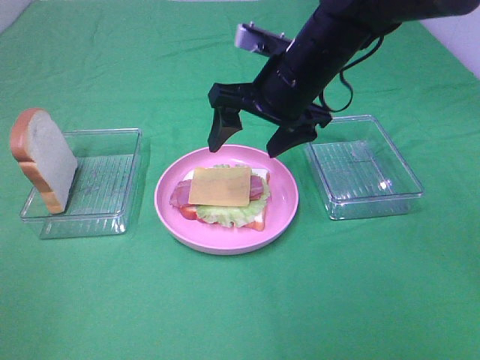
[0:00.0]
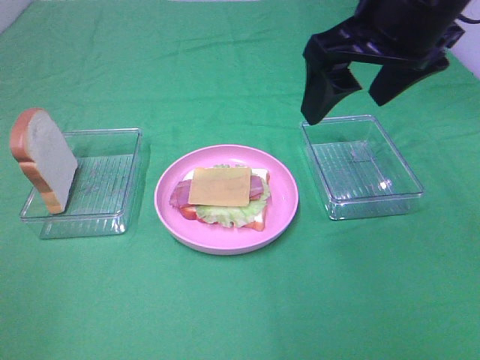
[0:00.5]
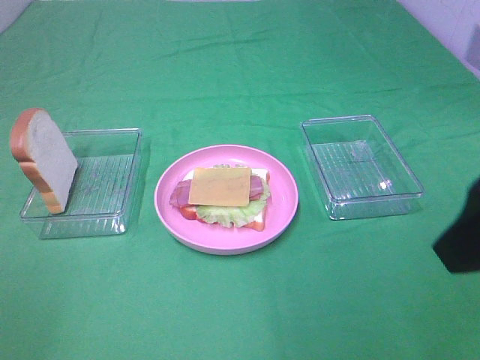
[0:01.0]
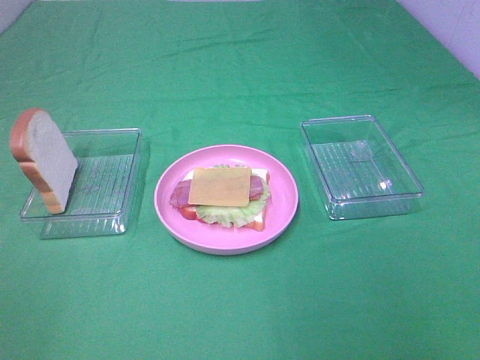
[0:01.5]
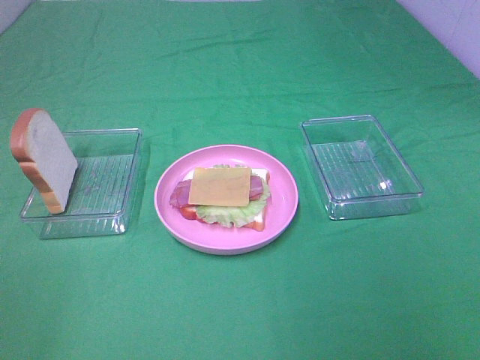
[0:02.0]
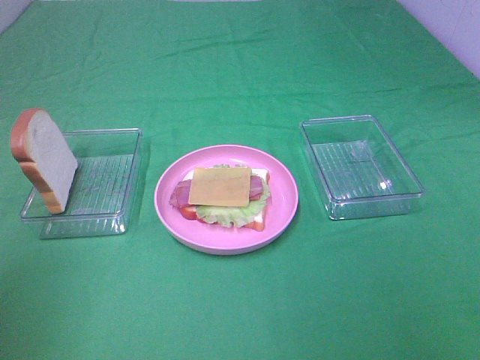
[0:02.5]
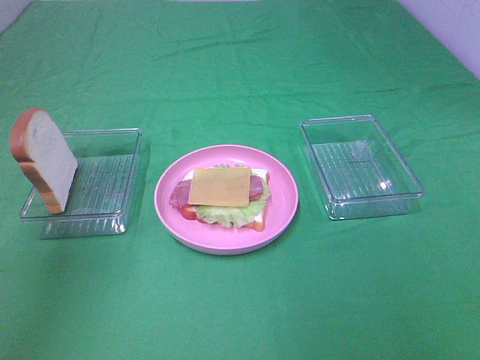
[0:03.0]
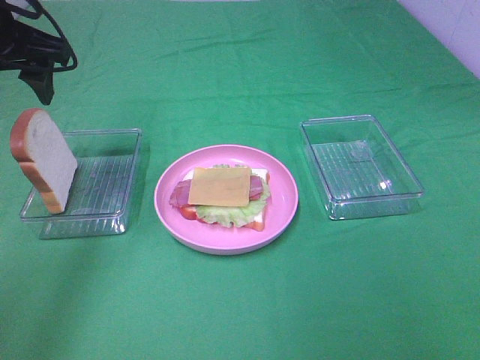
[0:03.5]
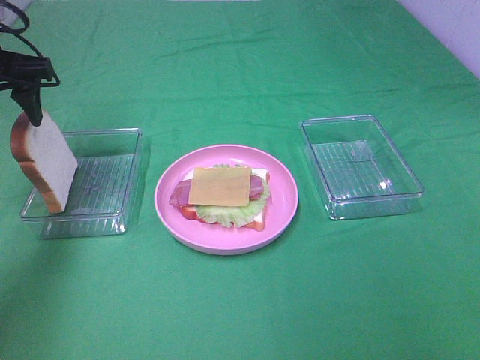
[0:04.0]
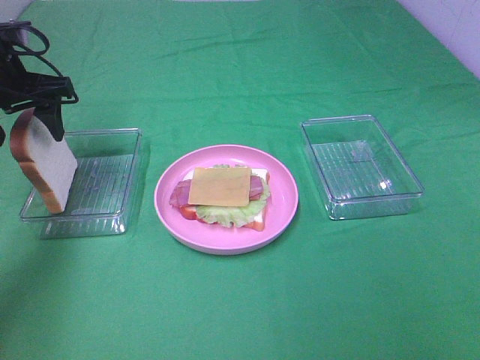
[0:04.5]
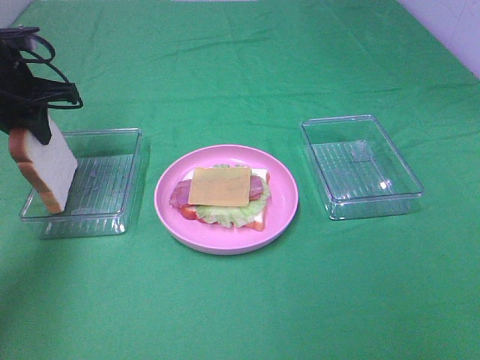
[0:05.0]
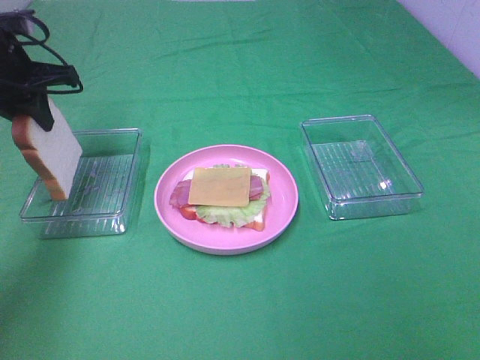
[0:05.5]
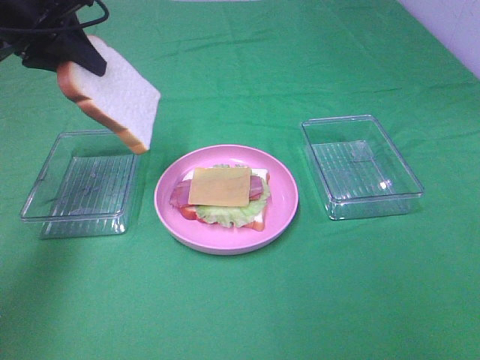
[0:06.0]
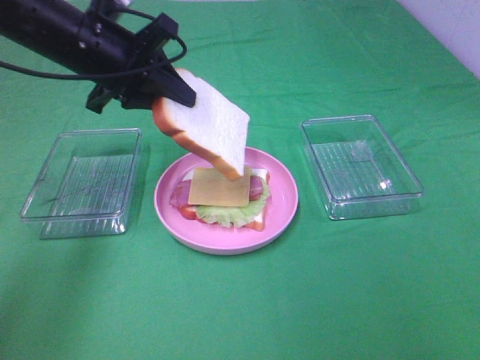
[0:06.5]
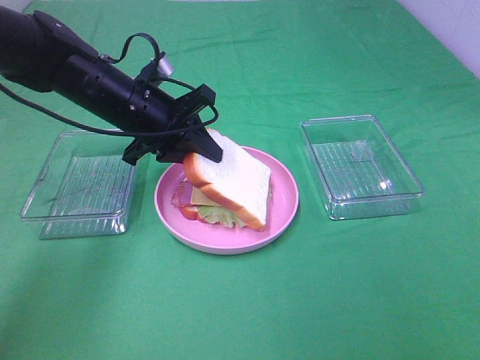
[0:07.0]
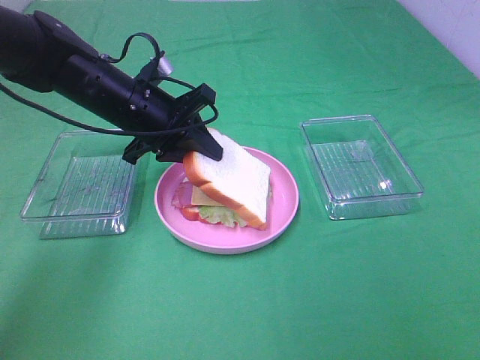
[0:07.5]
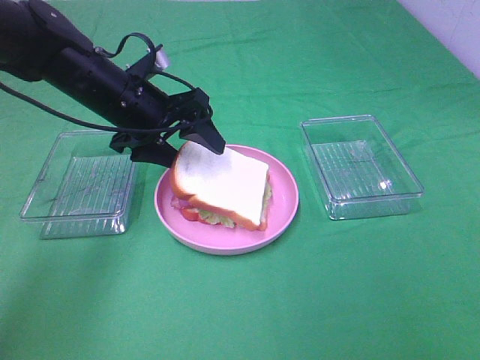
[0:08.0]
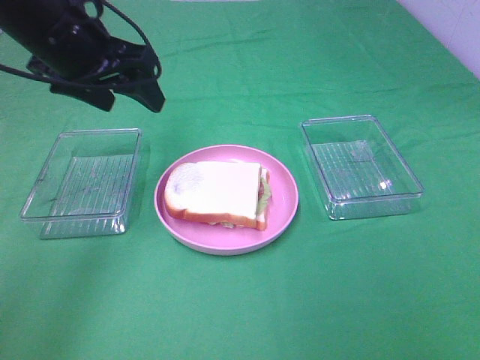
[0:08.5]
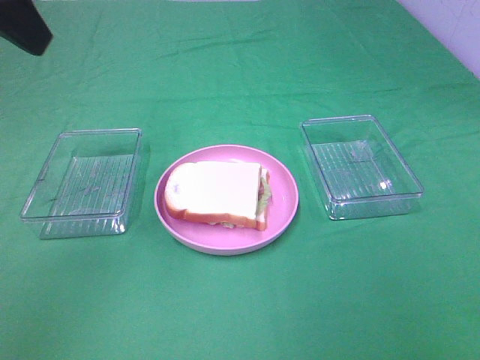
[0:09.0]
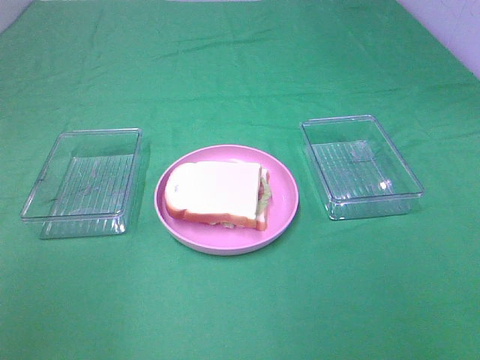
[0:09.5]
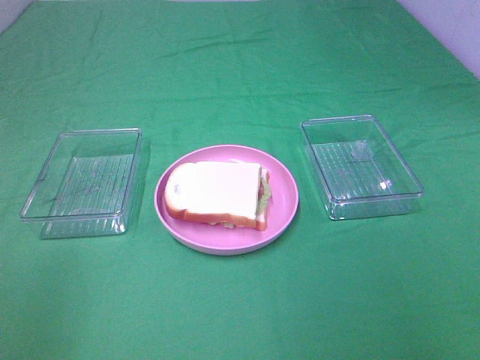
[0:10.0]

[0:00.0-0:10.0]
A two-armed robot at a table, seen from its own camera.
Task of the whole recording: Make sandwiches.
Step, 0:00.0 to 0:05.0: Left hand:grab the bread slice.
Step, 0:05.5 to 0:08.5: Left hand:place the bread slice on the cheese slice.
0:00.0 to 0:02.0: The right gripper shifts some 40 cm backward and to the right.
0:02.0 to 0:04.0: The left gripper heads forward, covering roughly 40 cm.
0:04.0 to 0:06.0: The left gripper goes some 5 cm to the right, and closes.
0:06.0 to 0:08.0: The left gripper is displaced downward and to the right by roughly 15 cm, and opens its fingers.
0:08.0 to 0:10.0: The left gripper goes some 40 cm backward and to the left.

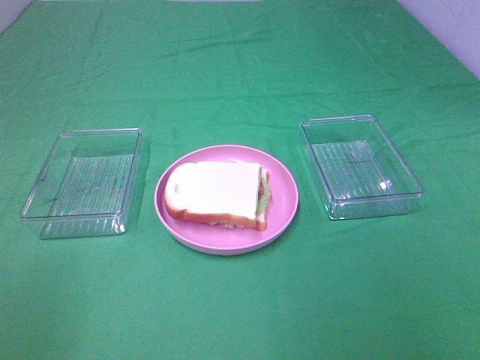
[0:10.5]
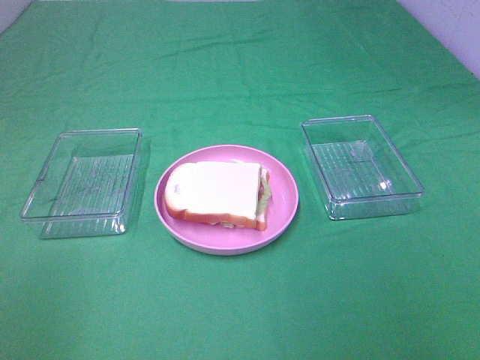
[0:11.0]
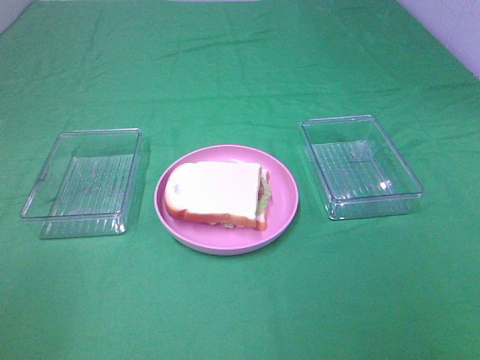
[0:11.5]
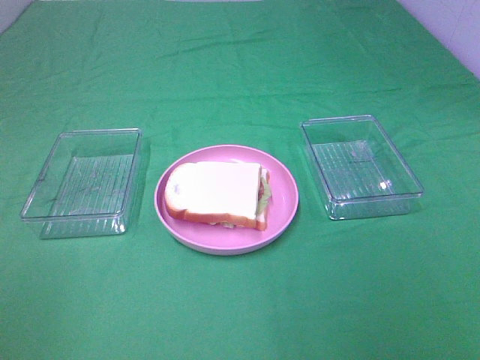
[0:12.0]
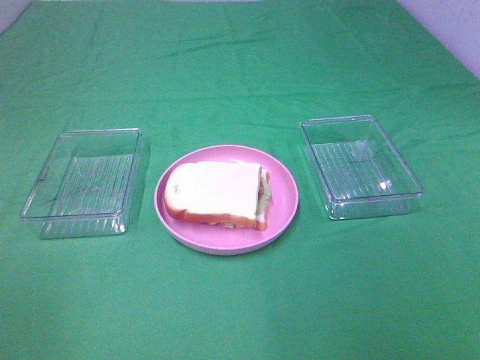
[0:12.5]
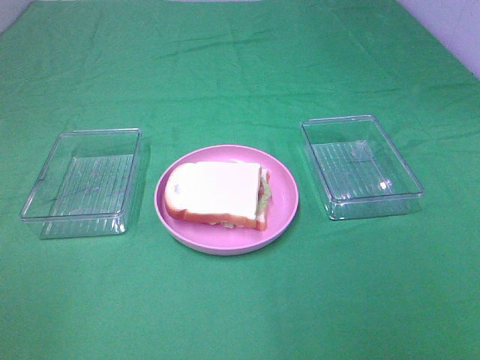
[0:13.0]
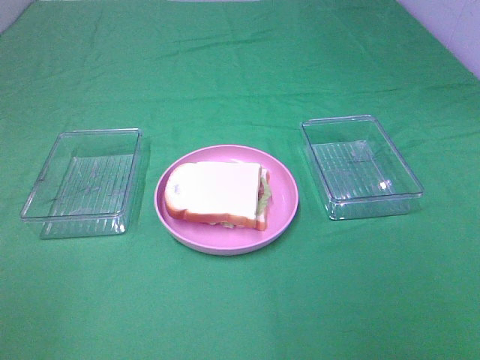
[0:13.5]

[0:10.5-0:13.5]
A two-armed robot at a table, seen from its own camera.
Task of the whole recording: Make sandwiches.
0:12.0 to 0:13.5: Neither gripper changes place.
